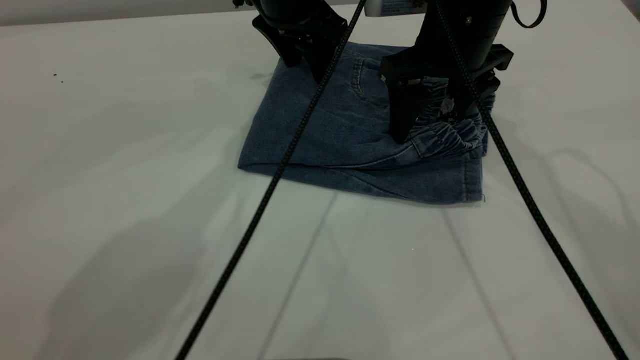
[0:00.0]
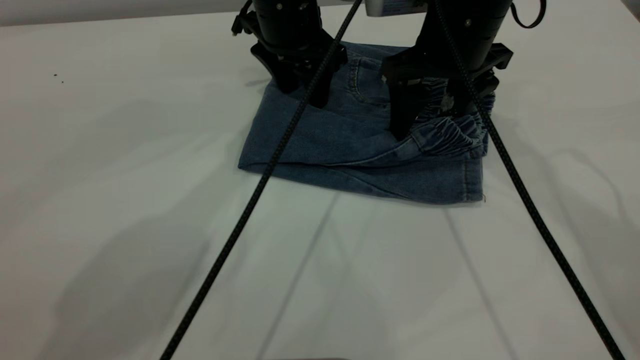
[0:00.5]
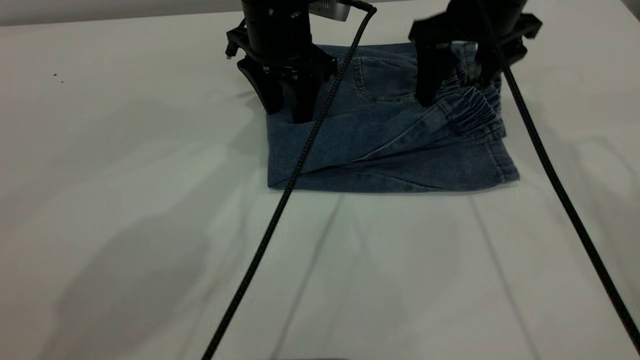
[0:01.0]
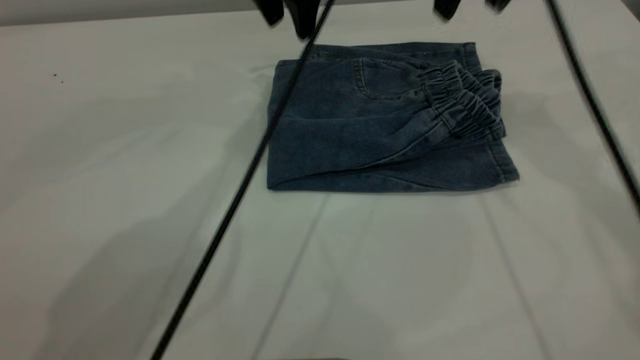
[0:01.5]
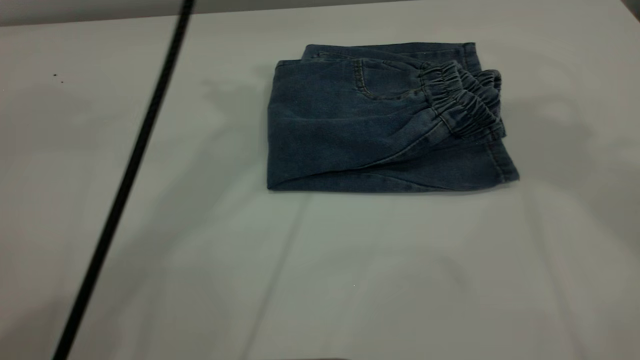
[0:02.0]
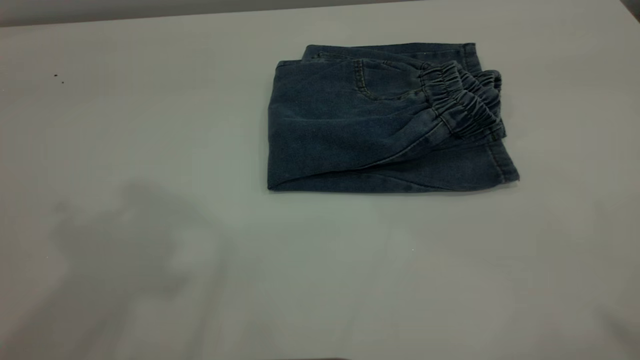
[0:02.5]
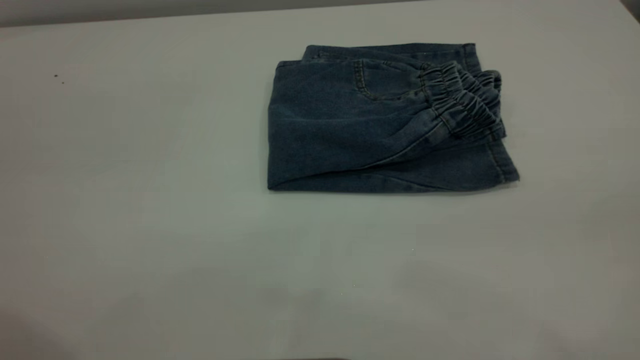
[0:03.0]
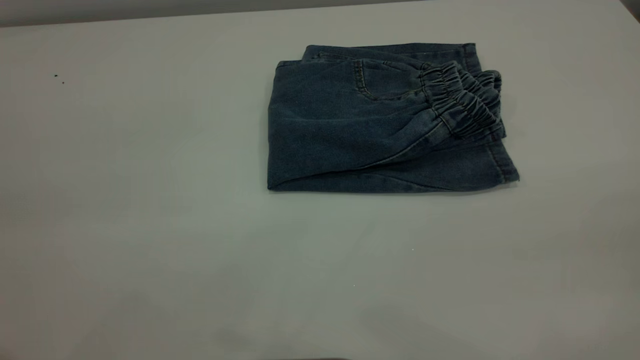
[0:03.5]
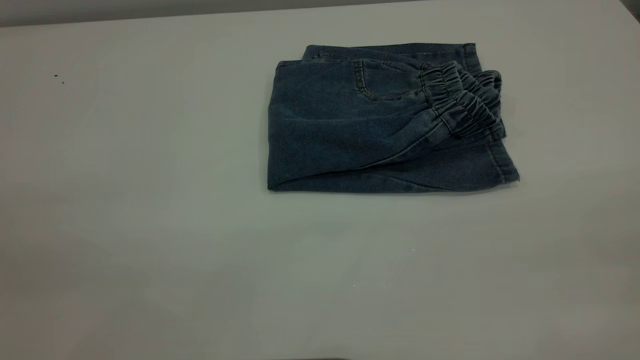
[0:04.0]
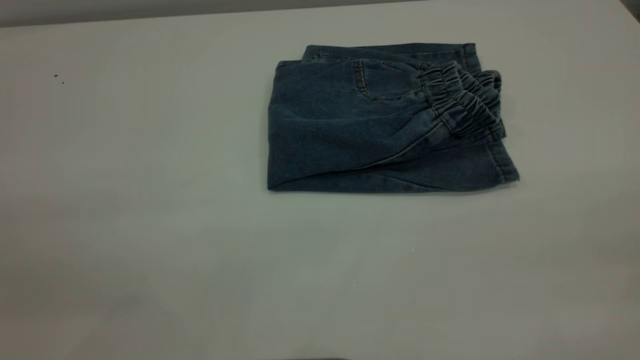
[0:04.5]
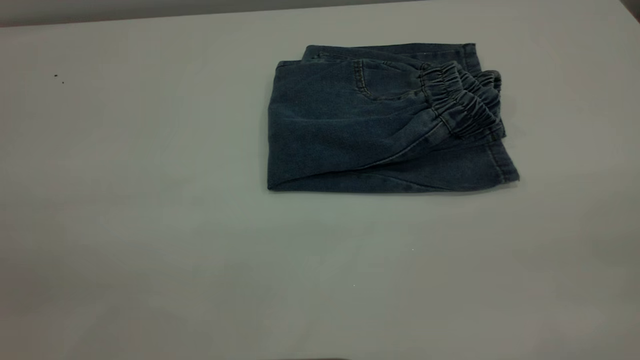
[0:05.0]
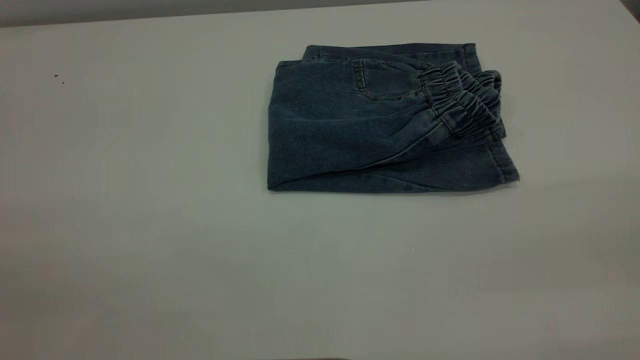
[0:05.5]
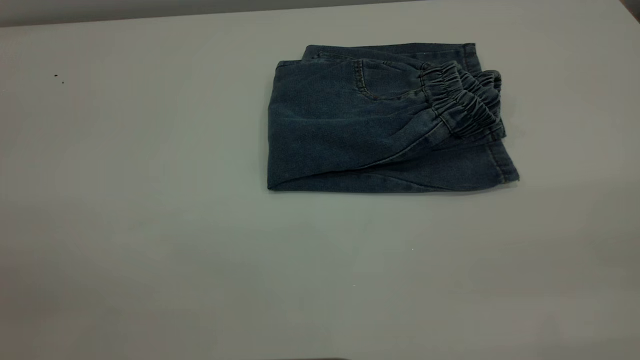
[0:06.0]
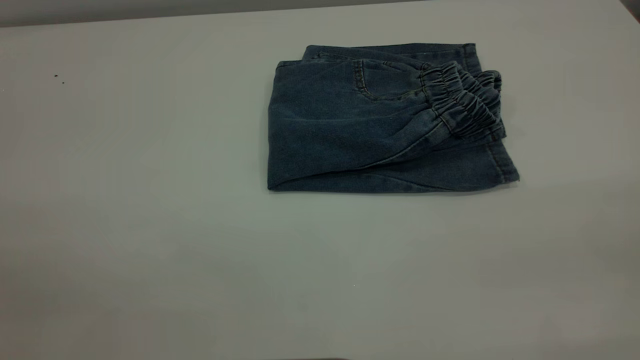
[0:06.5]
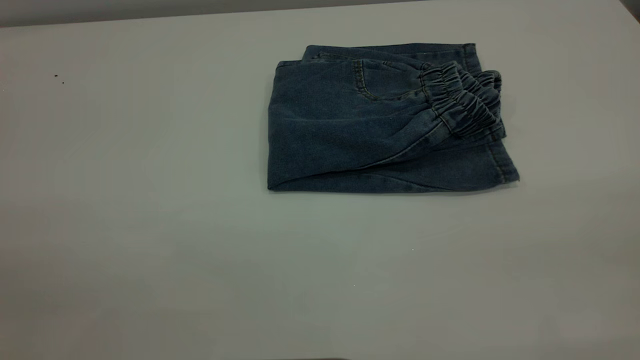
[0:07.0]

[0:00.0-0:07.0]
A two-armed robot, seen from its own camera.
0:00.0 to 0:02.0: The grippers both shift upward by approximately 30 cm.
0:02.0 to 0:03.5: The left gripper moves backward and to the left, about 35 cm.
